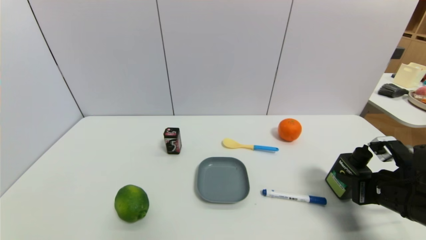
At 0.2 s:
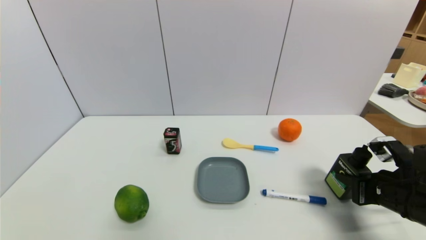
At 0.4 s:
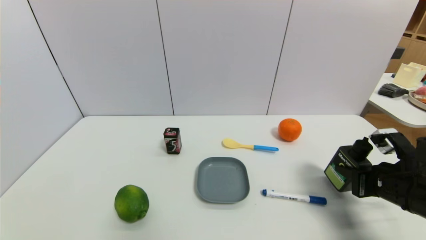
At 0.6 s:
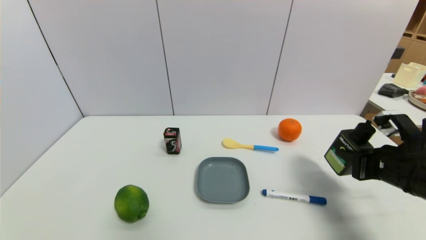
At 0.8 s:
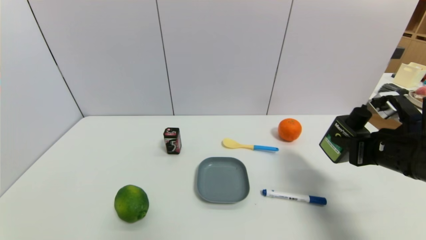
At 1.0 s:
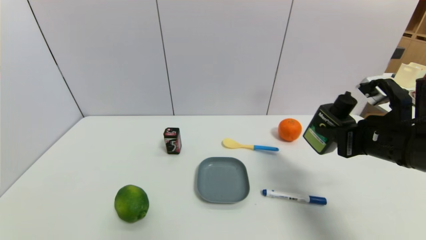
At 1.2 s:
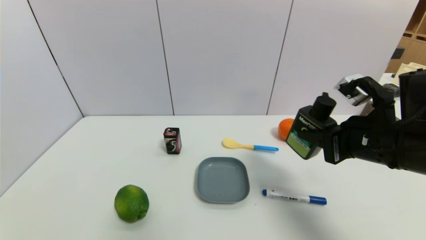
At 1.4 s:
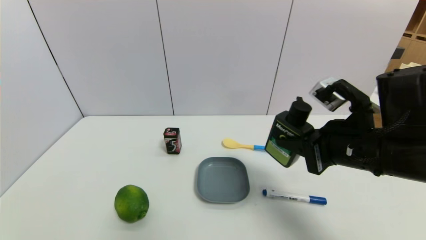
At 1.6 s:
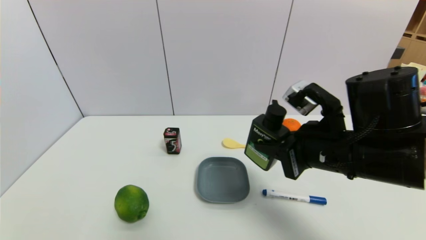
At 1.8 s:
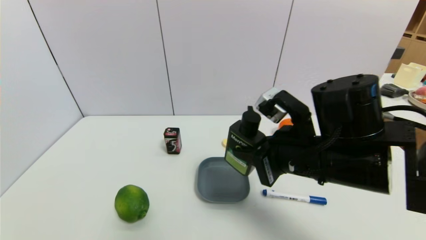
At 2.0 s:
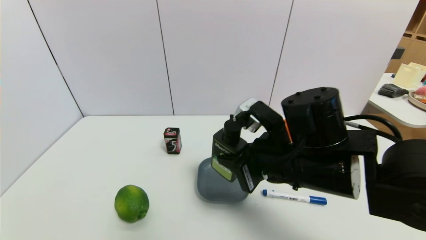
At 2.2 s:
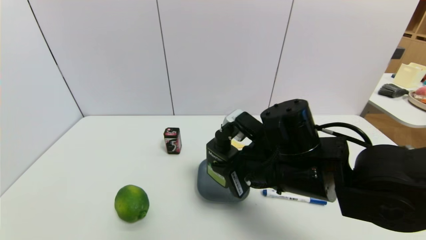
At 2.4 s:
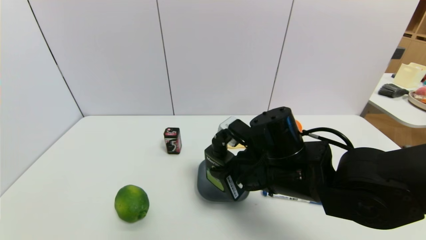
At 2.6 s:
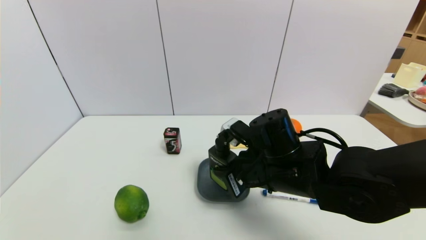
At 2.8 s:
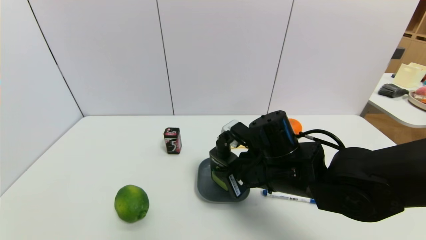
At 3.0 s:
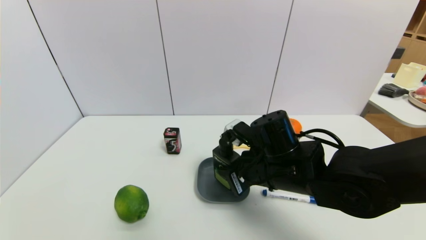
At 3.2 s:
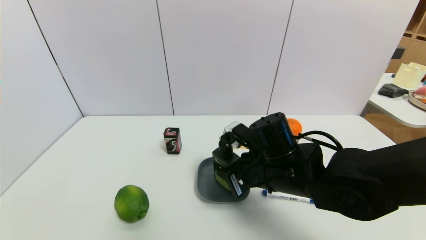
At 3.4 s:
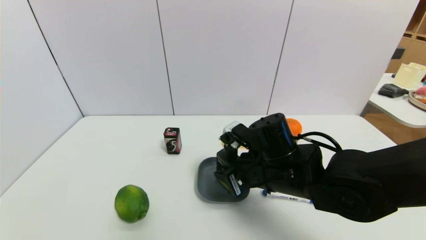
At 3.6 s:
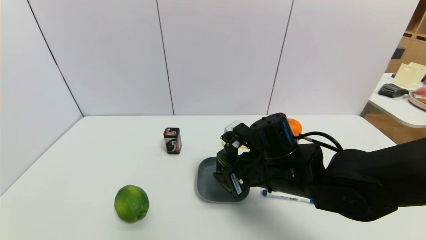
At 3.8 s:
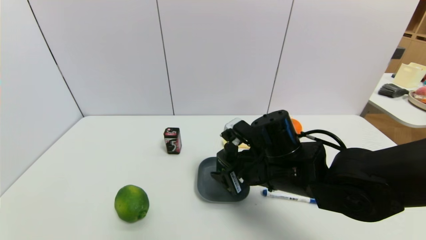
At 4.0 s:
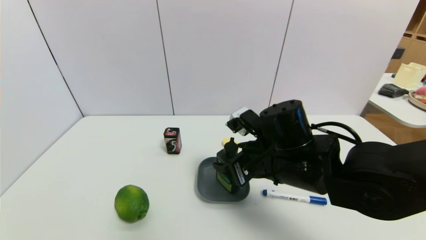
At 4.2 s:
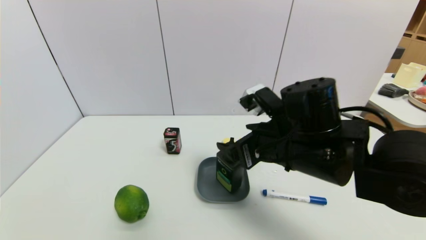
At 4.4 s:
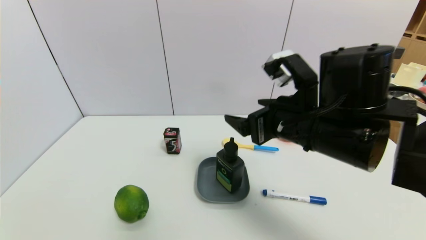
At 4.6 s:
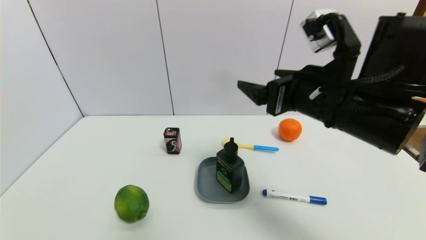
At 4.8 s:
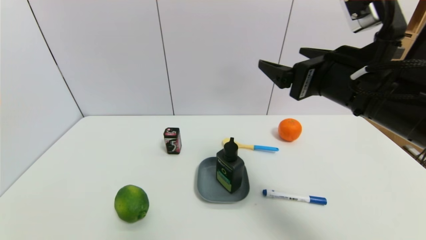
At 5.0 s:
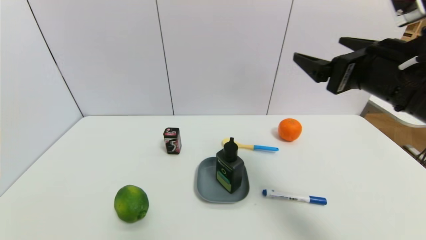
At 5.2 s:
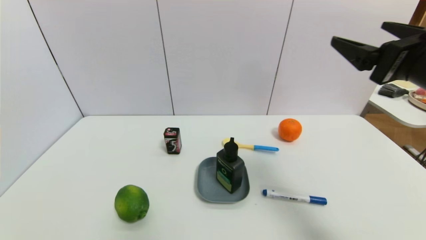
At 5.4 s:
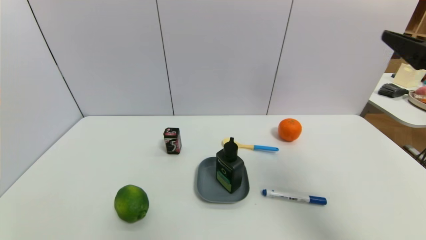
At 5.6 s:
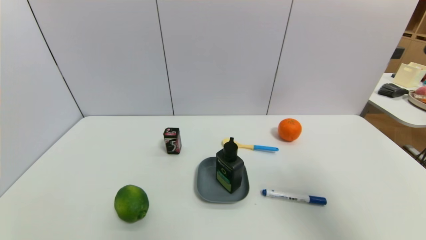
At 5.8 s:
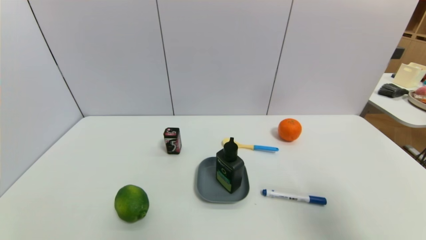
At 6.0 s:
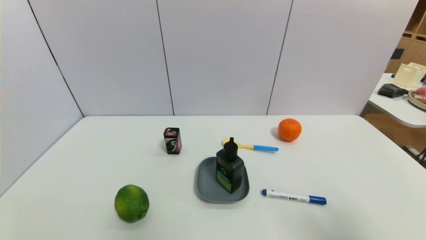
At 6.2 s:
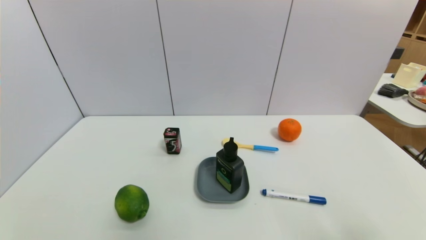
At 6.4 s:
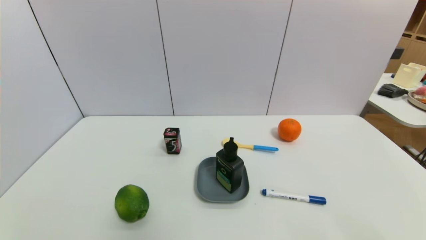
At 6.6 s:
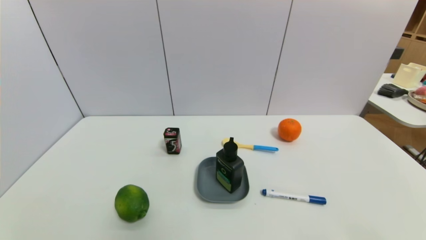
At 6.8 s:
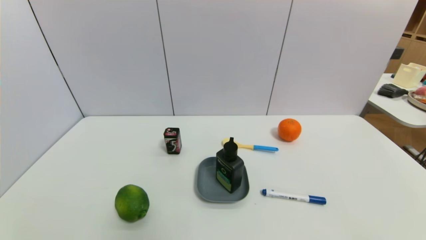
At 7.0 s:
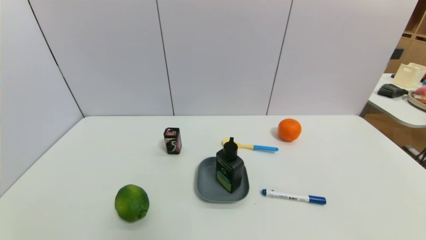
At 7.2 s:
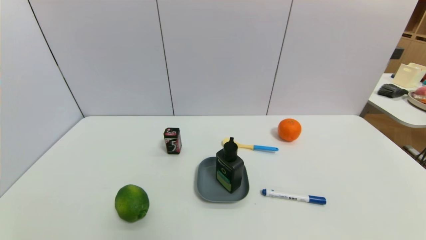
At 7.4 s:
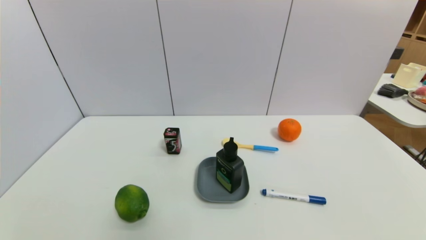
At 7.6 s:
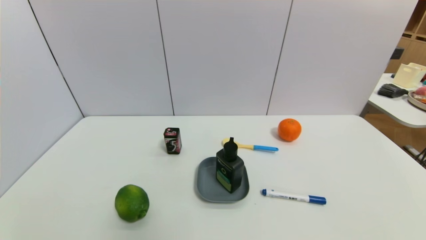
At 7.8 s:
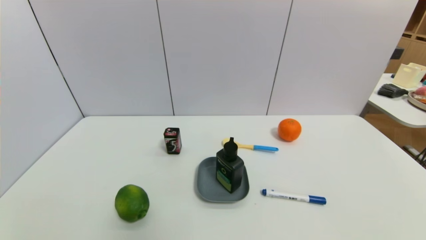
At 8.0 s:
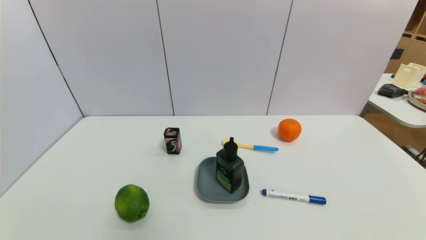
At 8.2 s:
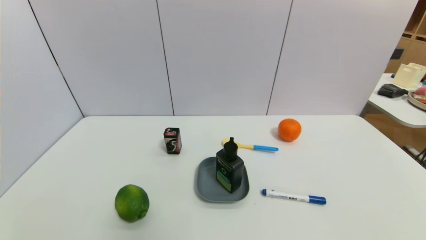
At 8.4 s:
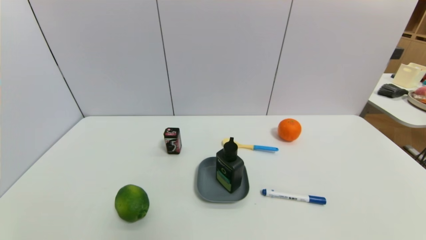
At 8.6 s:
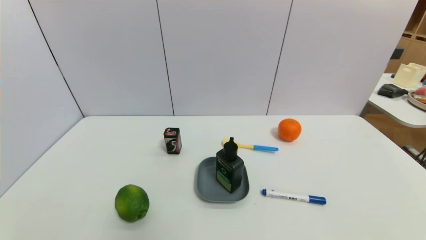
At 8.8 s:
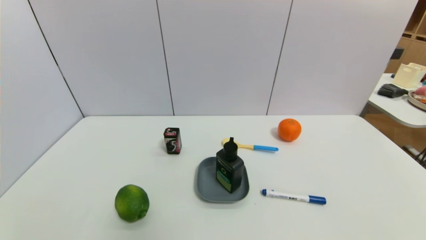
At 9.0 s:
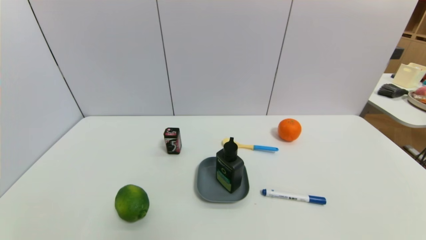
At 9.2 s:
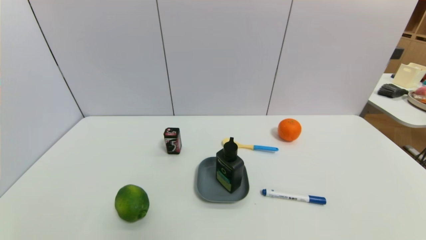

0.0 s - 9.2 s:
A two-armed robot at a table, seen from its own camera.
Task of the whole recording: use a gripper to pick the target object and place on the dish.
Step, 0.4 s - 4.2 s: Place the hard facial cleanser on the dish with the right gripper.
0.0 s - 1.6 s: The right gripper travels to the left and upward by about 20 cm.
1.6 s - 3.0 s: The right gripper goes roughly 10 cm downward and to the left.
3.0 s - 4.6 s: The right gripper travels upward and to the right by about 15 cm, and opens up.
4.6 s - 6.2 s: The right gripper goes approximately 30 cm backward and to the right.
7.6 s - 9.2 s: Both grippers stay put.
